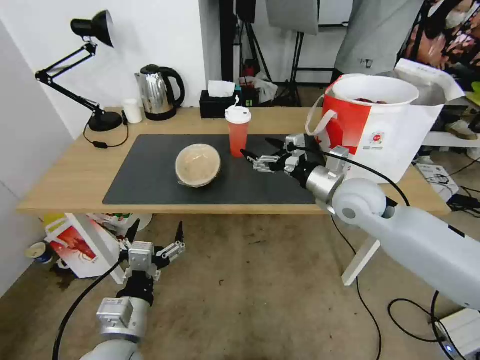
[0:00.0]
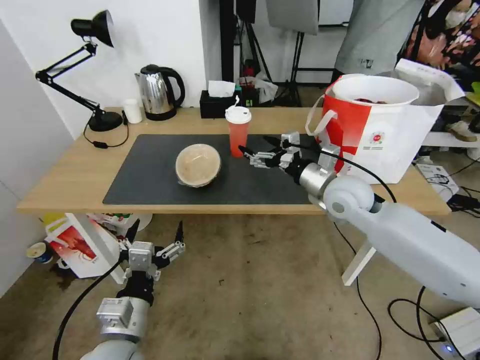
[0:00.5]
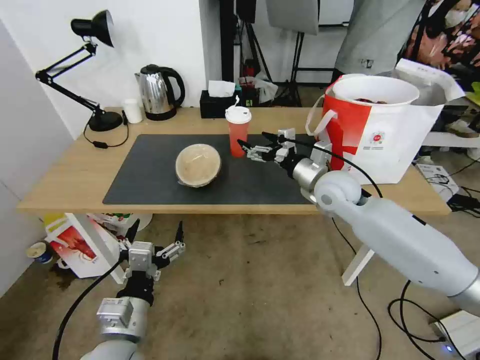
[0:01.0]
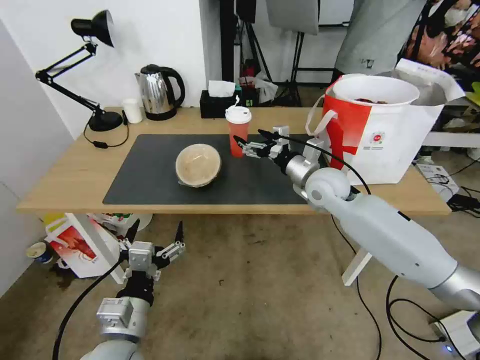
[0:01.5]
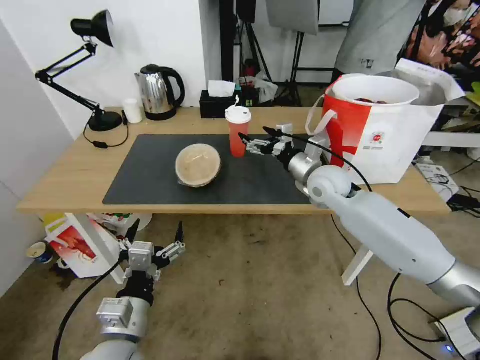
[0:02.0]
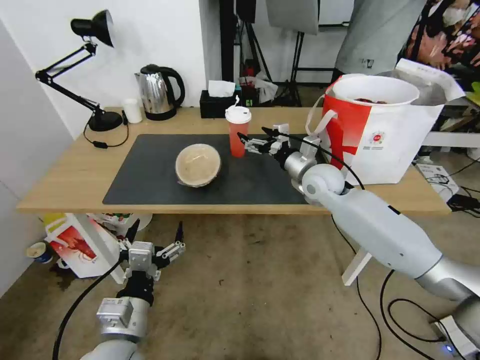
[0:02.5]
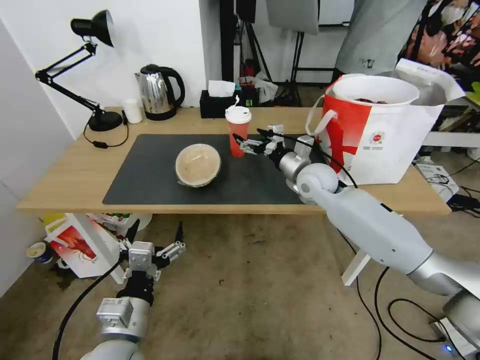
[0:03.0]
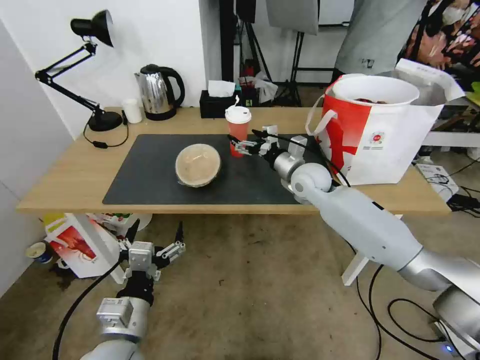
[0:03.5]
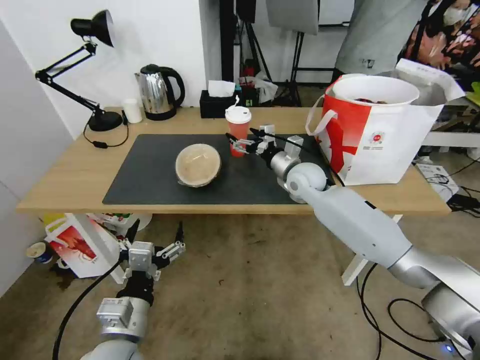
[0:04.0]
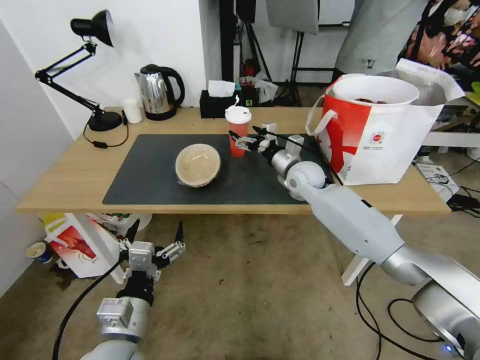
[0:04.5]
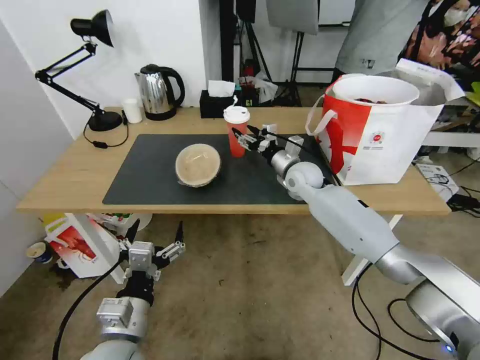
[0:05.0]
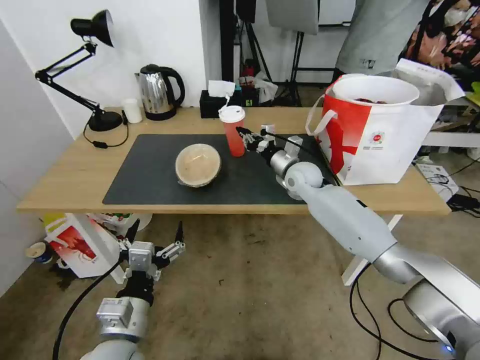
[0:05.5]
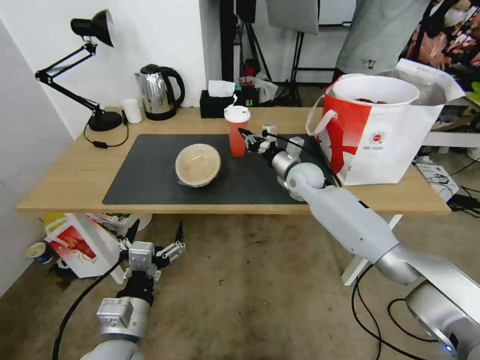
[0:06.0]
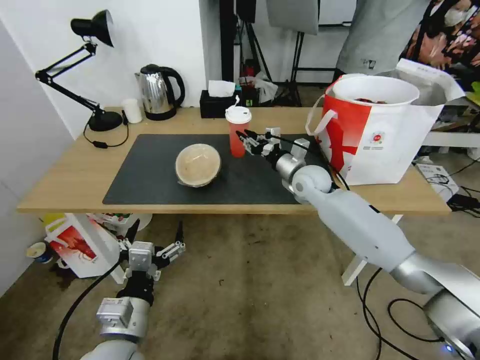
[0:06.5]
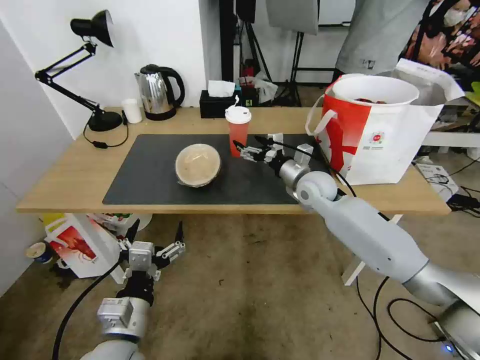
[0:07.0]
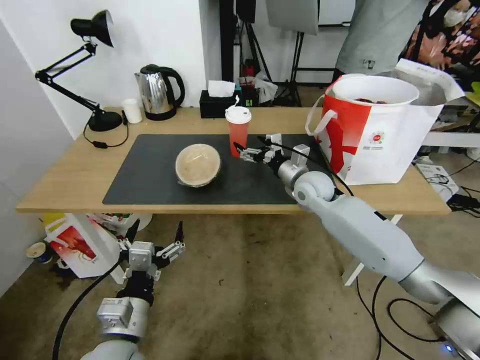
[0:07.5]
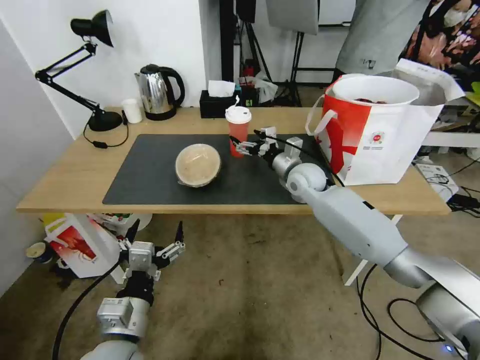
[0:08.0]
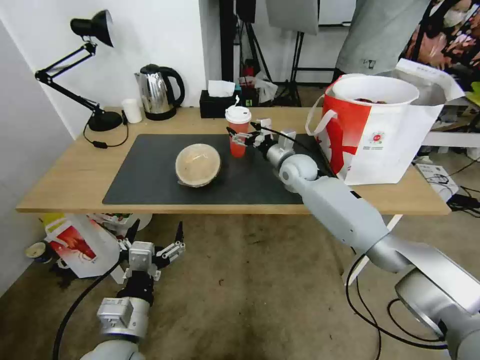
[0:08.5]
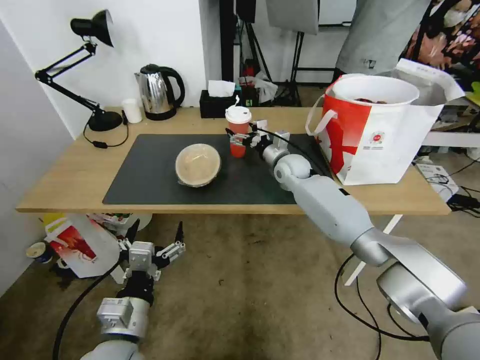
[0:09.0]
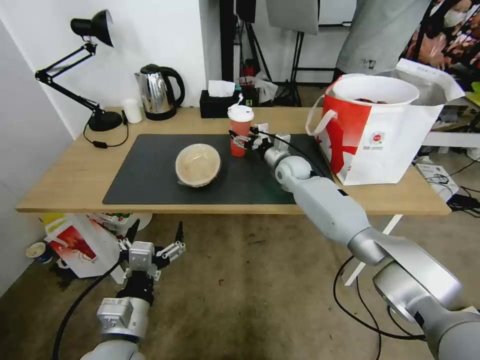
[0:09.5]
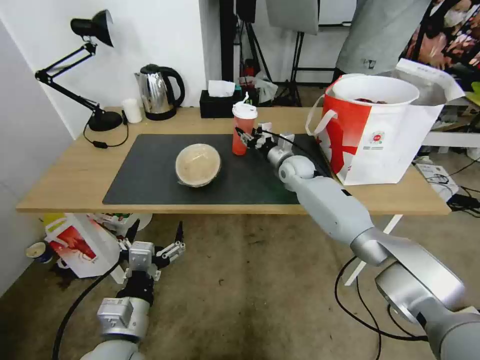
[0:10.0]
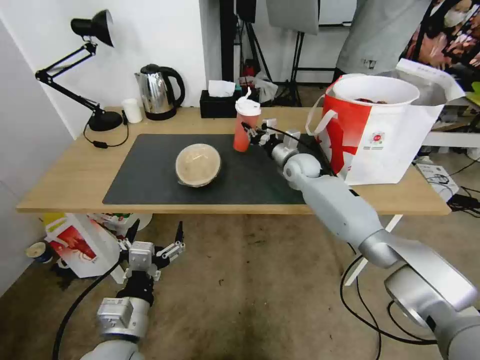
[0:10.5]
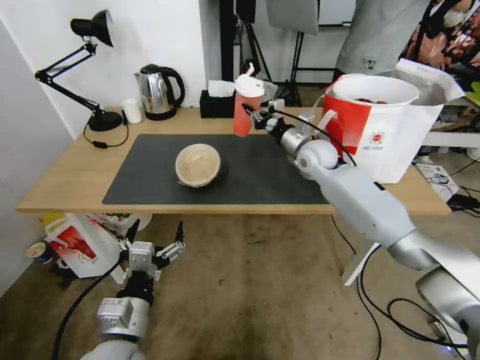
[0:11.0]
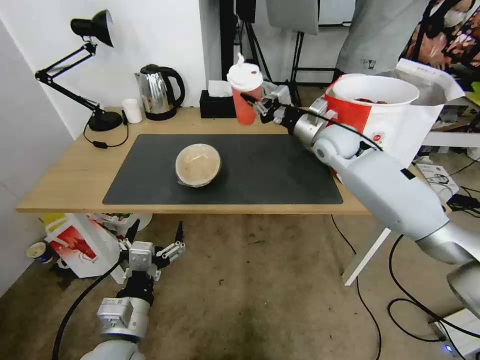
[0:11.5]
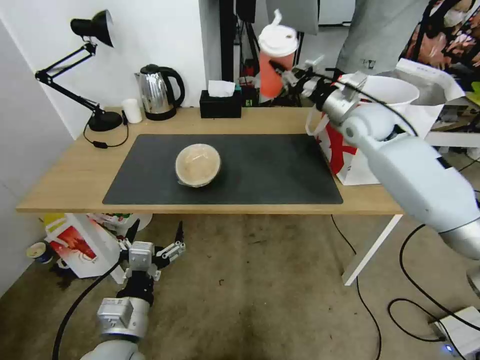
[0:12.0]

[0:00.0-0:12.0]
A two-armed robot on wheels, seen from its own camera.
Task of the whole recording: Pick up the trash from the table and place it into the takeout bag.
0:00.0 to 0:02.0: The right gripper heads forward, covering some 10 cm.
0:02.0 to 0:04.0: The right gripper moves some 5 cm.
0:04.0 to 0:06.0: The right gripper closes its fingers.
0:06.0 to 0:08.0: The right gripper opens.
0:08.0 to 0:10.0: The right gripper moves forward, approximately 5 cm, and closes.
0:10.0 to 0:12.0: The right gripper travels upward and to the right by approximately 20 cm, and closes.

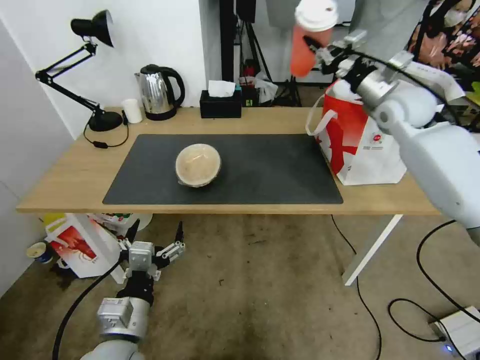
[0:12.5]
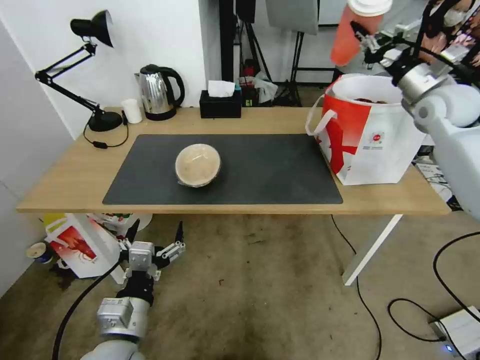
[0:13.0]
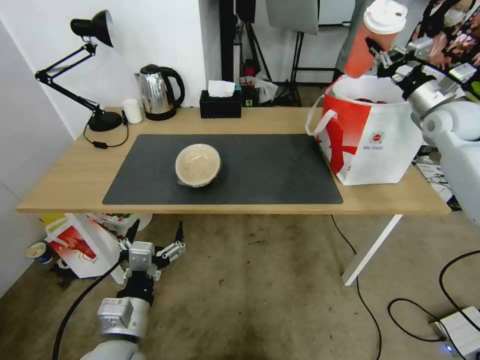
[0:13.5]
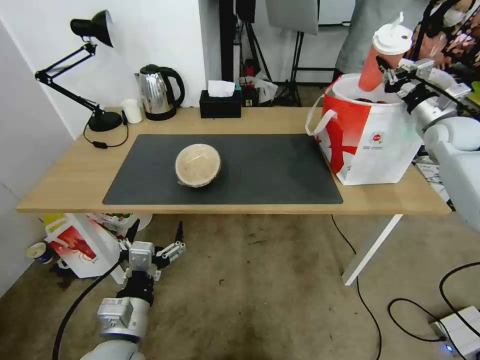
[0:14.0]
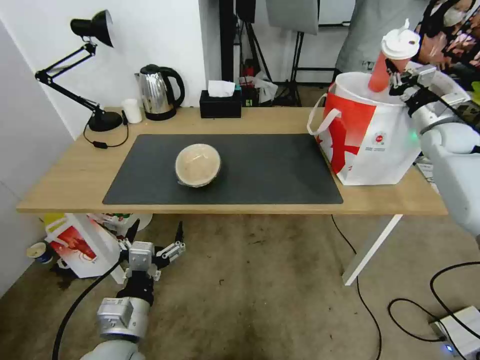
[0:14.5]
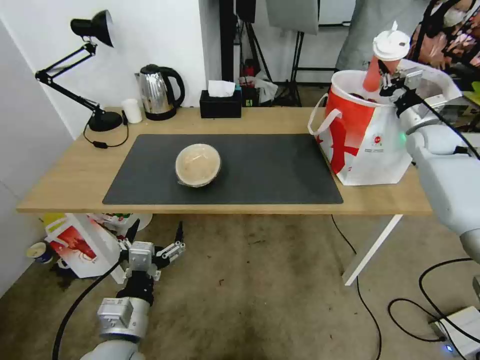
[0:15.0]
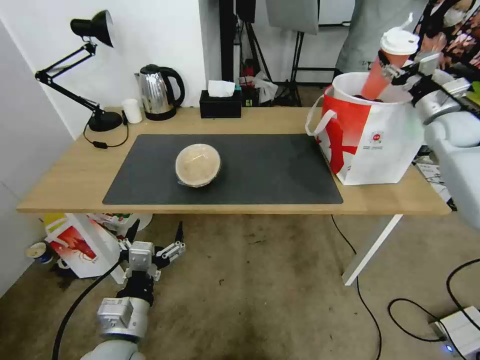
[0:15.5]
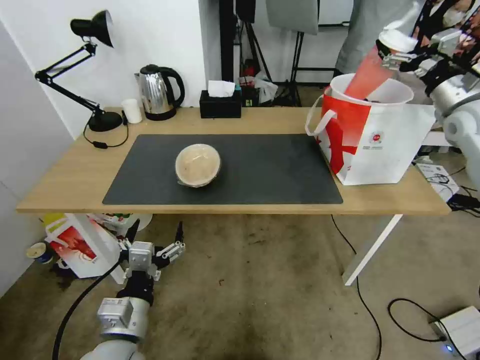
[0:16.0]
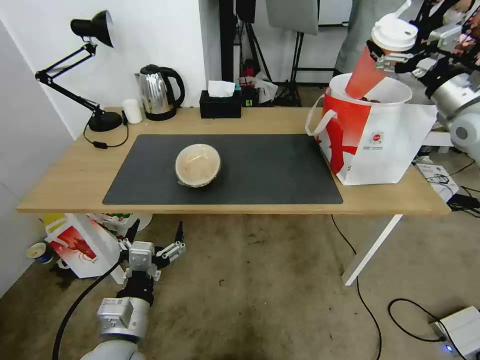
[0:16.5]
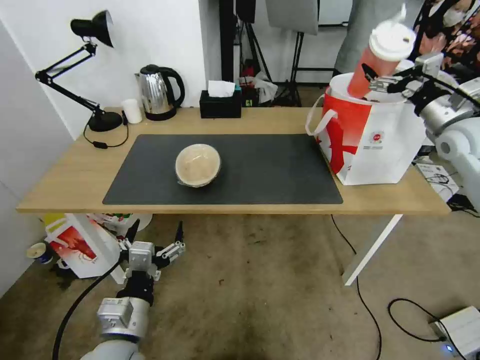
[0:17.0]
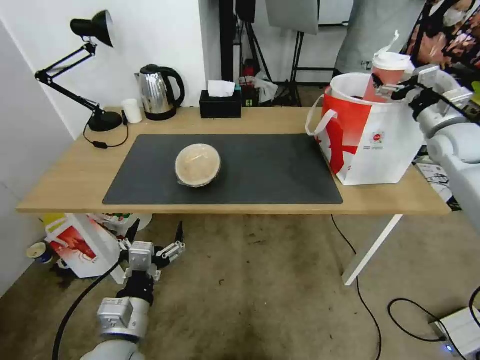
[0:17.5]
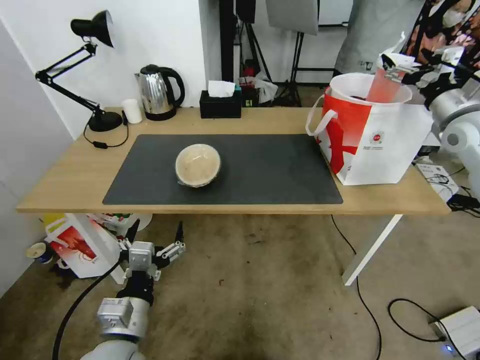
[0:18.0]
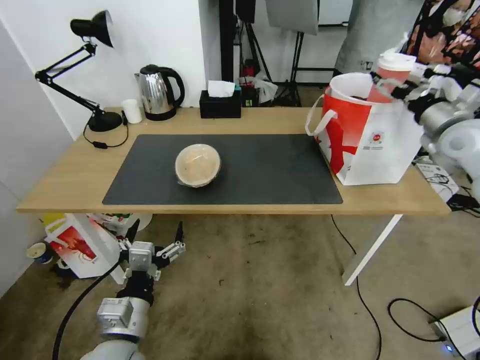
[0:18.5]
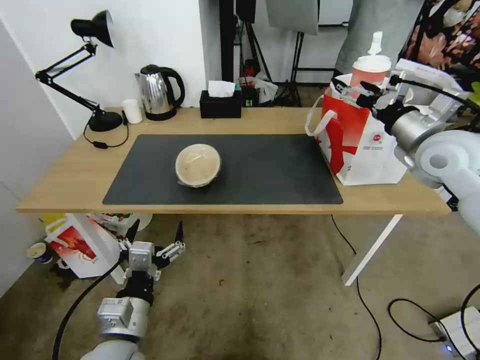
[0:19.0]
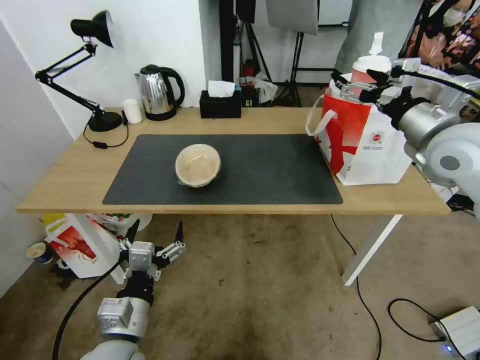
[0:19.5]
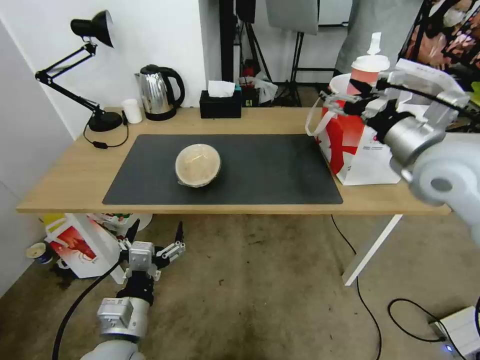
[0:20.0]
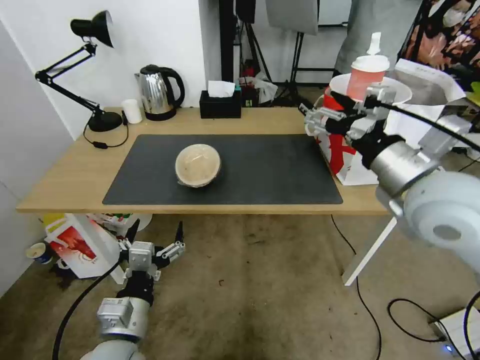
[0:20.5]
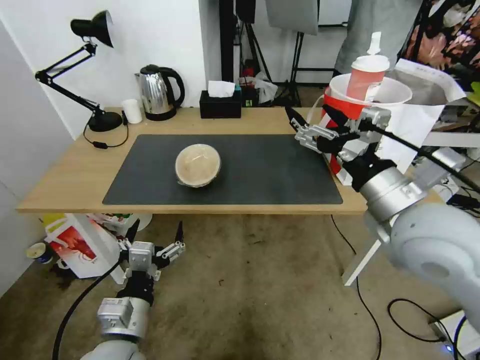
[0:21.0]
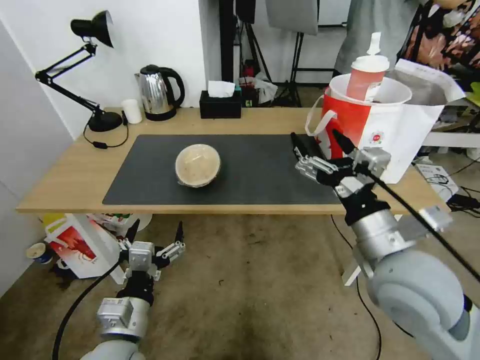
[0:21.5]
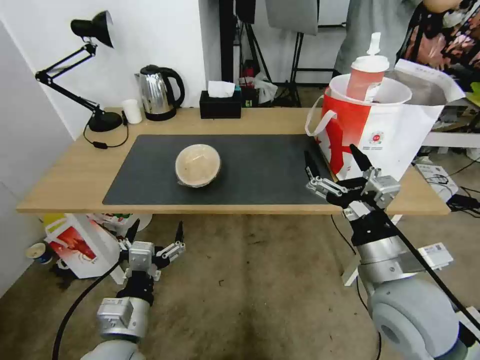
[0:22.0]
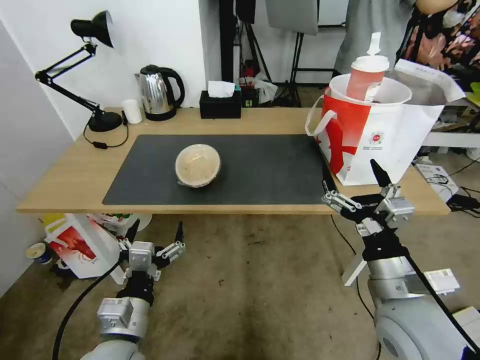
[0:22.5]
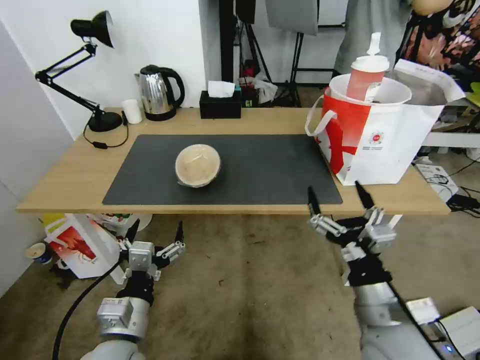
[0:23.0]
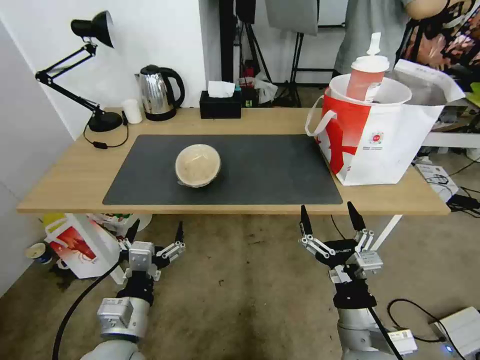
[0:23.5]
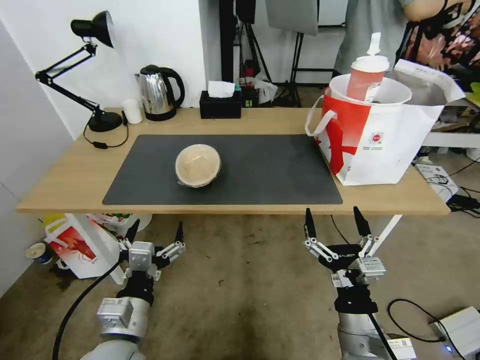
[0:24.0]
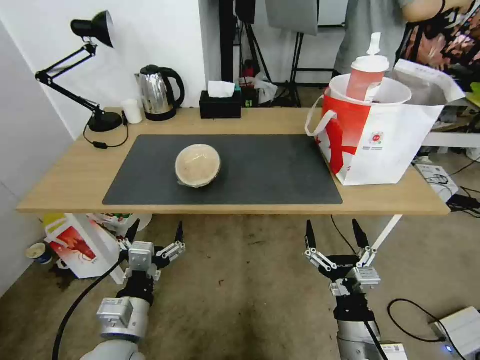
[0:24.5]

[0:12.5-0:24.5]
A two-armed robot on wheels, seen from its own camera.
Task of the whole recording: Pick up the trash from the table and place it into the takeout bag.
0:12.5 to 0:14.5: The right gripper is displaced to the right and downward by some 20 cm.
0:14.5 to 0:16.5: The right gripper travels upward, backward and to the left by approximately 15 cm, and opens up.
0:18.5 to 0:20.5: The right gripper travels to the left and backward by roughly 25 cm.
0:20.5 to 0:22.5: The right gripper heads downward and backward, covering approximately 20 cm.
0:22.5 to 0:24.5: The right gripper goes some 15 cm downward and backward.

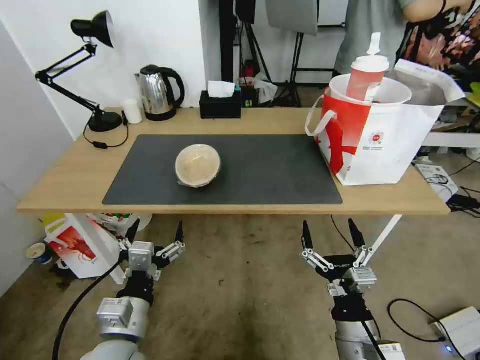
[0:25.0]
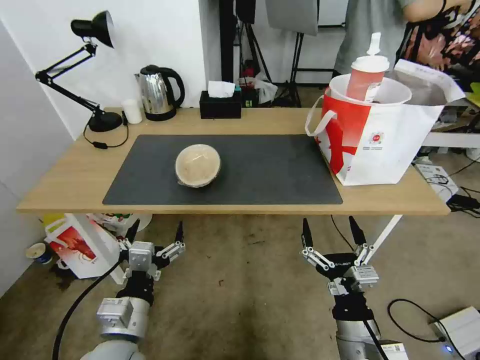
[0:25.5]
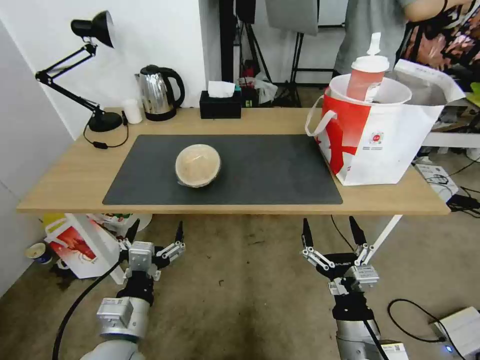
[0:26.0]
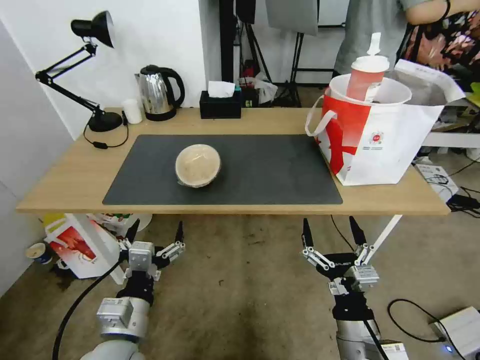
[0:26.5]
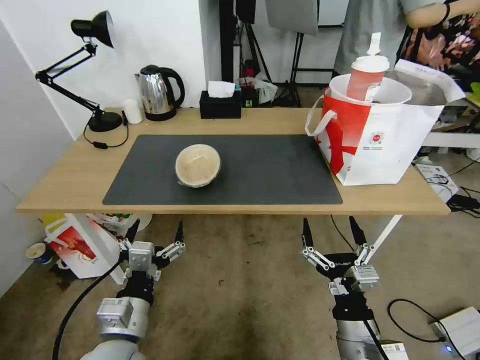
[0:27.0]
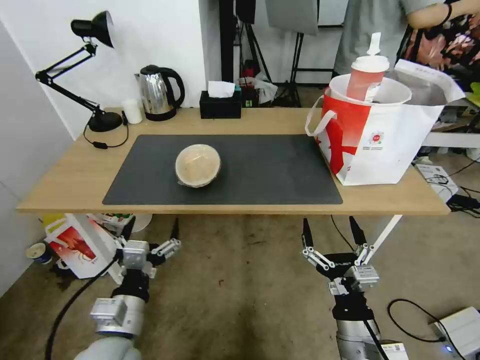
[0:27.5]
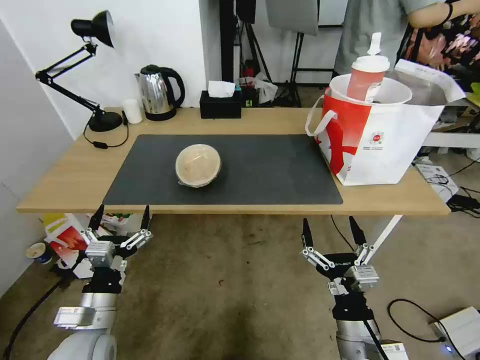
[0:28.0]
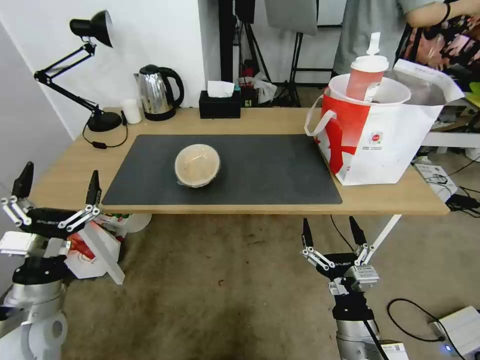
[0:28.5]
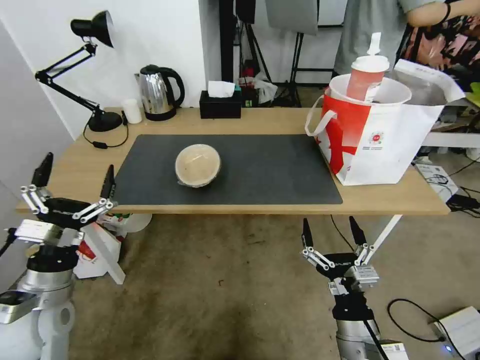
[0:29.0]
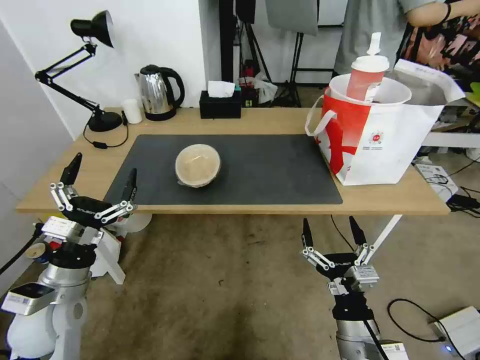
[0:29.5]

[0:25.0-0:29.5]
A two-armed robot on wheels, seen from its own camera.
Task of the whole recording: Pick up the trash from the table and place it into the takeout bag.
0:25.0 to 0:27.0: The two grippers keep their place.
0:27.0 to 0:29.5: The left gripper shifts some 15 cm to the left and forward.
